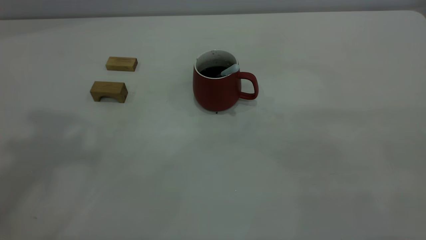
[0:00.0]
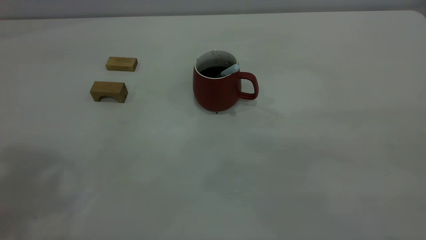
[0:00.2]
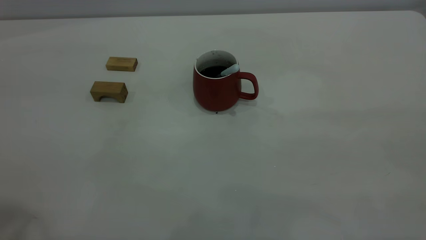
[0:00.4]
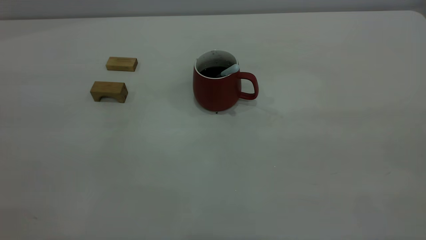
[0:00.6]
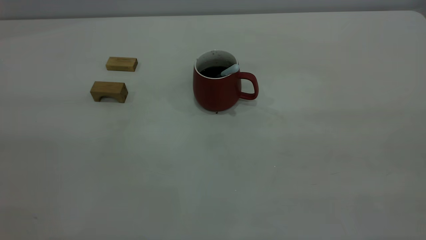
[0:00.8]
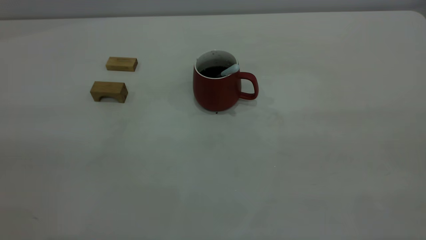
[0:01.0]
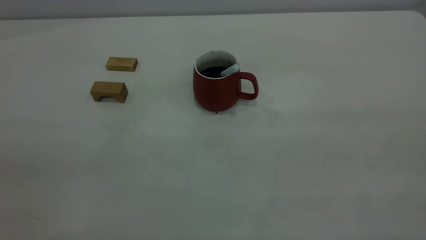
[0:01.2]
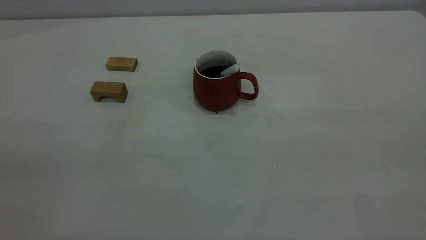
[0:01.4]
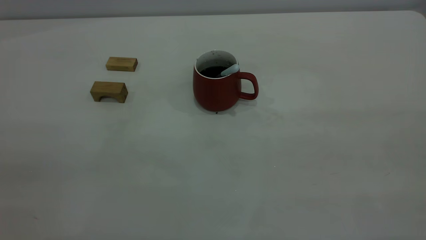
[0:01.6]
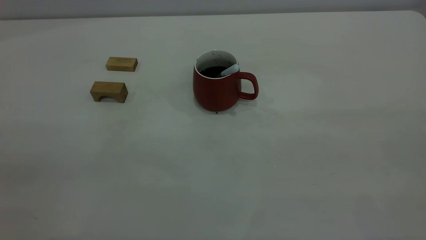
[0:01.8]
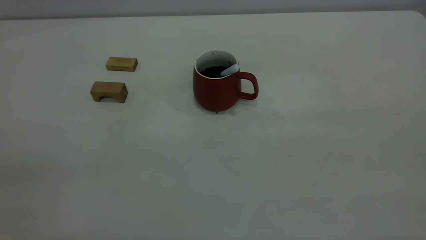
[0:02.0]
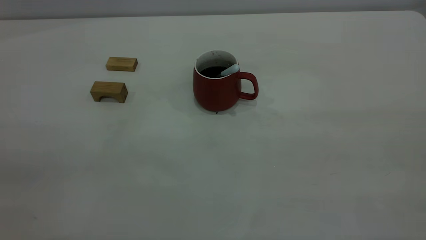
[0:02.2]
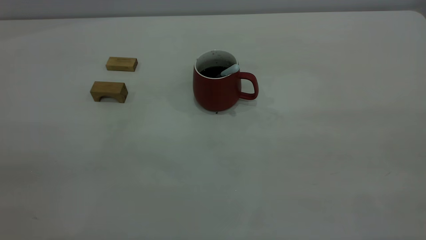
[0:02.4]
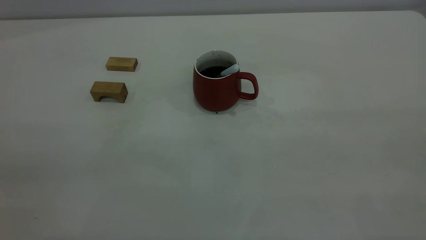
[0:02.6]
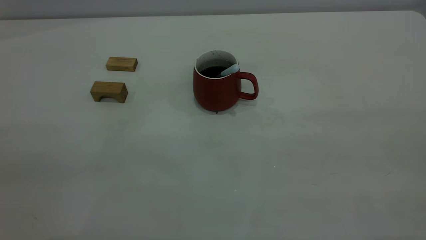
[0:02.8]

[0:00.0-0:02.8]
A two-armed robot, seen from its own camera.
0:01.4 to 0:02.8: Neither gripper changes place.
